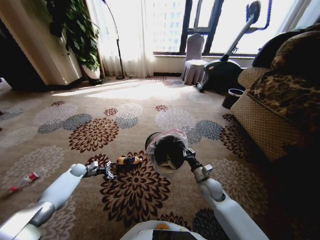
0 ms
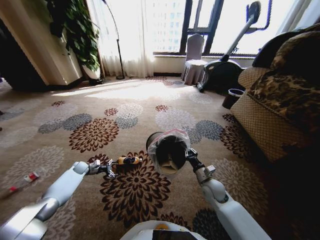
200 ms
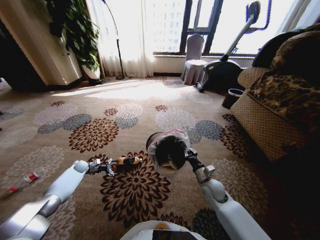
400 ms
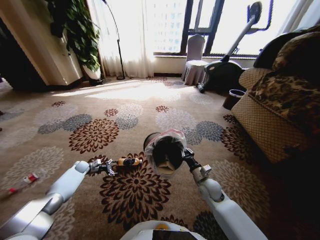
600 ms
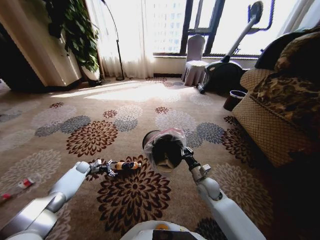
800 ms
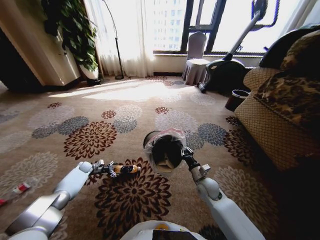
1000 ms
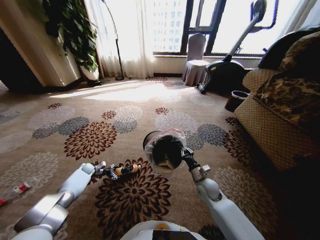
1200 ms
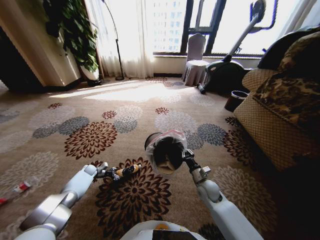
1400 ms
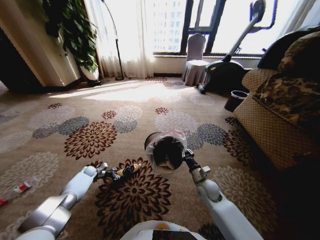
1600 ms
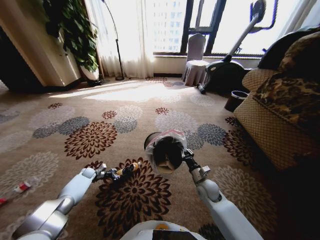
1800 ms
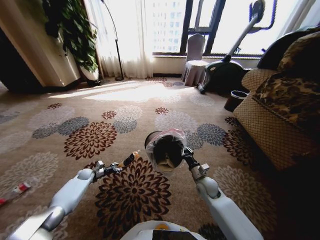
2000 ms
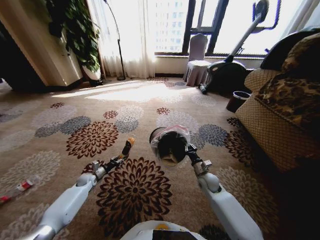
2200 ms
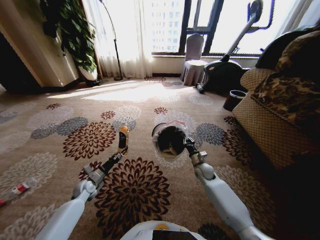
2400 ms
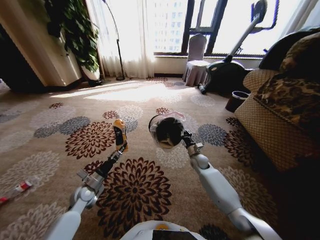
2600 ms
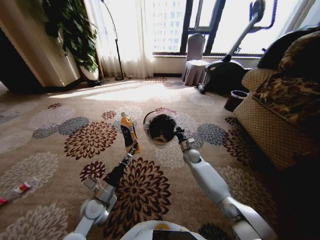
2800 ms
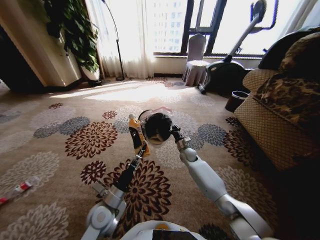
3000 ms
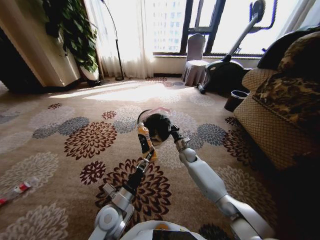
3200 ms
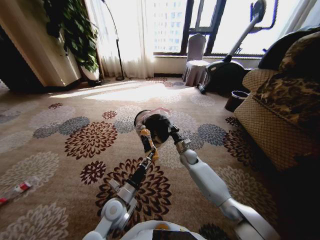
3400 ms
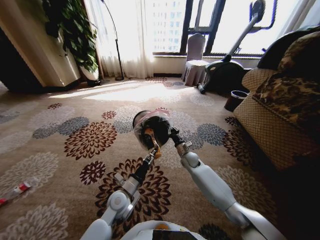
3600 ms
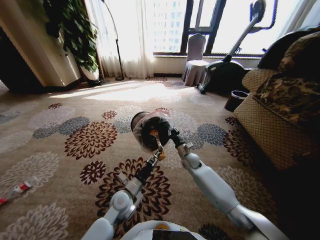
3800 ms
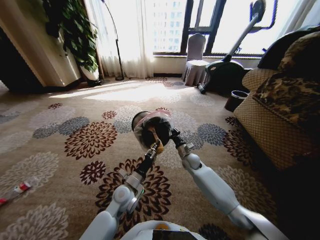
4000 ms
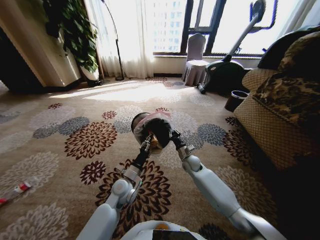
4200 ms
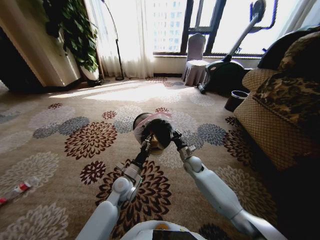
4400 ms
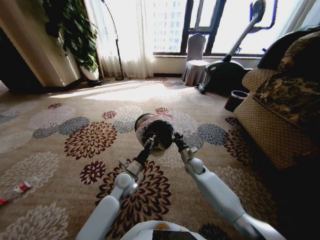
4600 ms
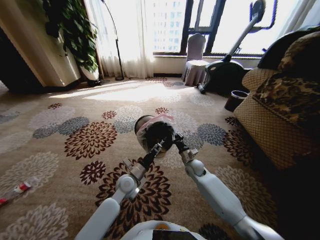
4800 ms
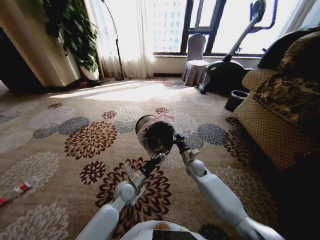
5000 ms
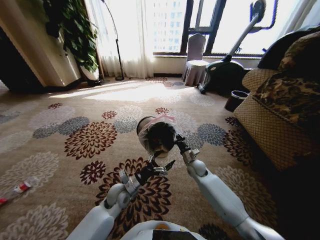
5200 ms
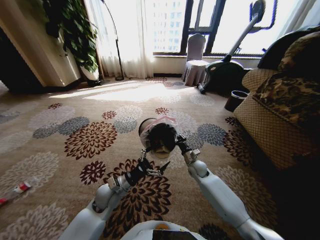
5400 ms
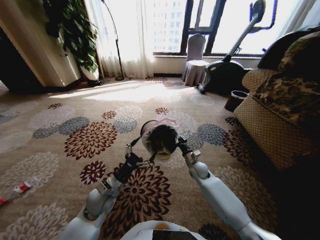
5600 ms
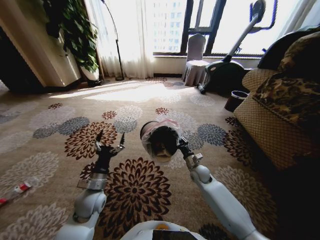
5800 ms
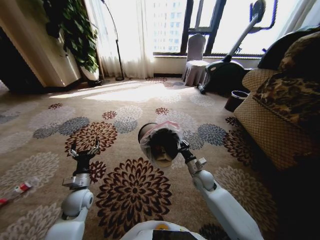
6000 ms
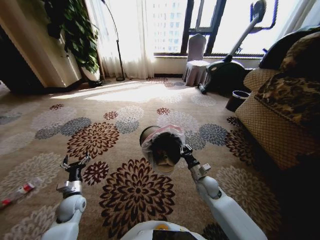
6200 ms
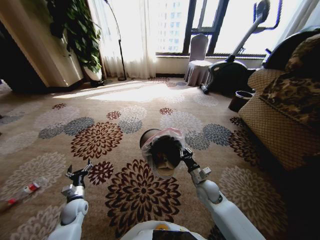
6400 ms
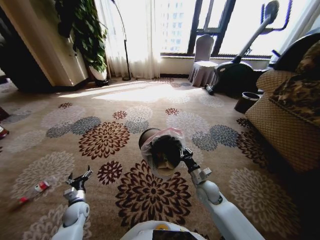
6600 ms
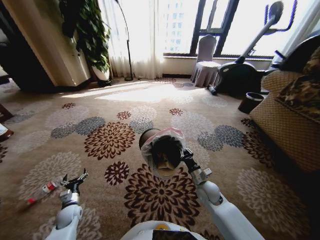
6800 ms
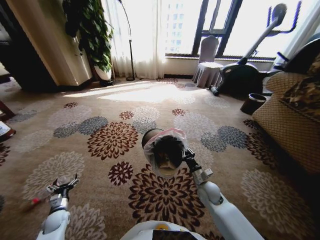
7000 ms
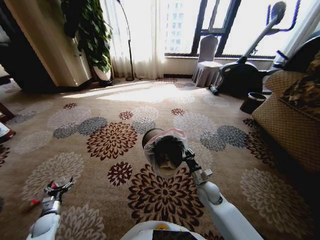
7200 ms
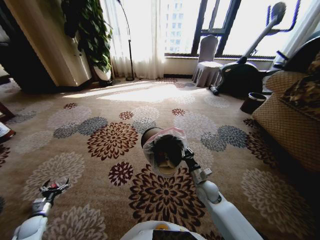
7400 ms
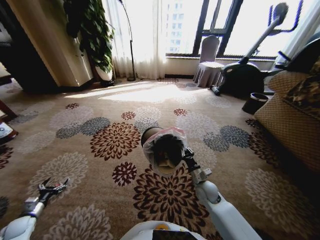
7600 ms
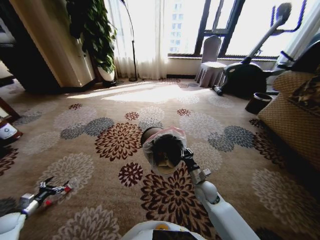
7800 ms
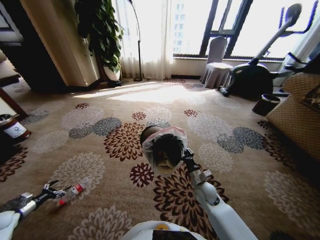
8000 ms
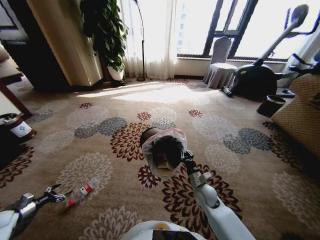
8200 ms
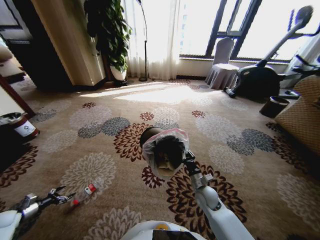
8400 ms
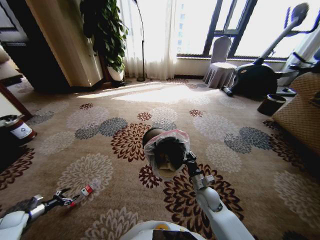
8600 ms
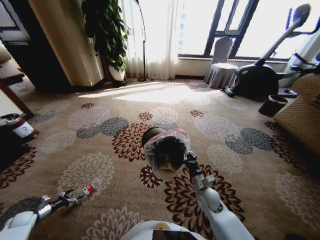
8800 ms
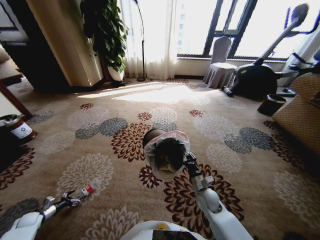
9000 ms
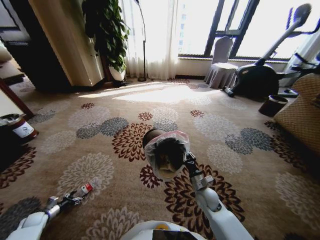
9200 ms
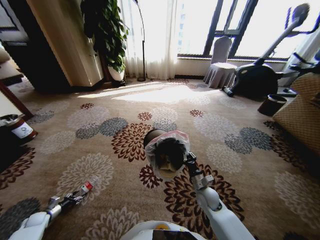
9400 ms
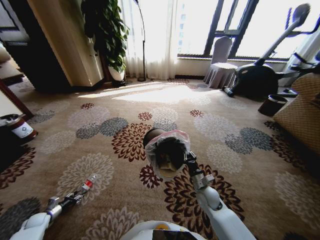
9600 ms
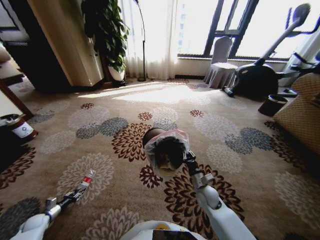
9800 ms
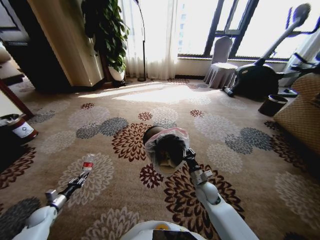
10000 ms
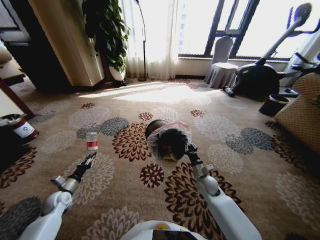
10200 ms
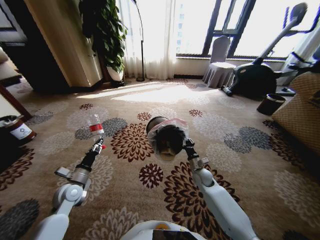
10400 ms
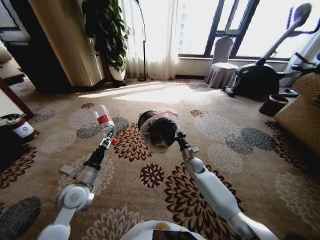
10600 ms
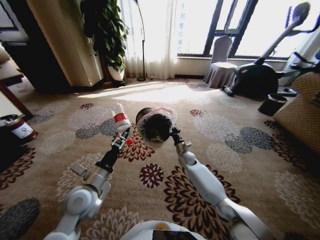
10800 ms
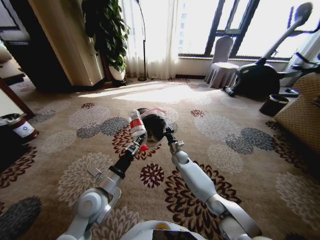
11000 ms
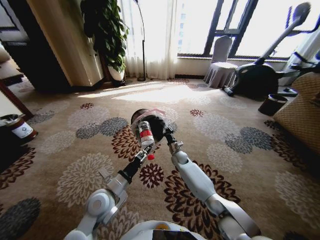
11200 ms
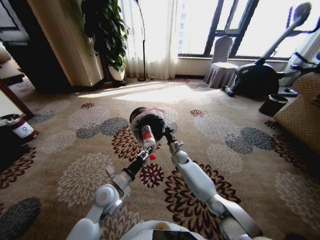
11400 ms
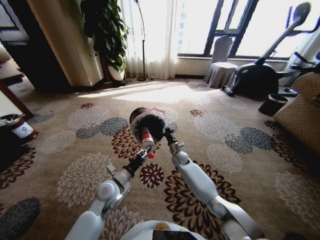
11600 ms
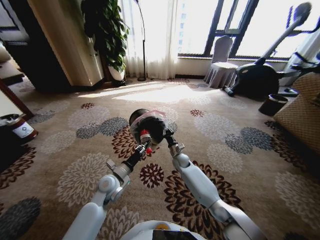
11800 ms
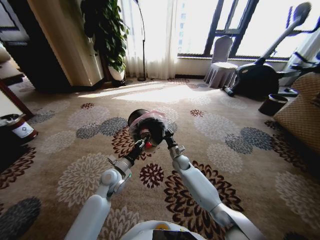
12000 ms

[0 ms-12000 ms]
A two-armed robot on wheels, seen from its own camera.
Task of the whole recording: Pick up the trash from the ground and place it into the trash bin.
0 ms to 1600 ms: The left gripper shifts some 5 cm downward, and closes up.
1600 ms to 3000 ms: The right gripper goes approximately 20 cm forward; the left gripper goes some 40 cm to the right, backward and upward.
3000 ms to 4400 ms: The left gripper travels forward by approximately 10 cm; the right gripper is displaced backward by about 5 cm.
4400 ms to 6000 ms: The right gripper is displaced backward by some 10 cm. The left gripper moves to the left, about 15 cm, and opens its fingers.
6000 ms to 7600 ms: The left gripper goes roughly 30 cm to the left and downward.
7600 ms to 9000 ms: The left gripper changes place by approximately 5 cm.
9000 ms to 10400 ms: The right gripper shifts approximately 10 cm forward. Meanwhile the left gripper is displaced to the right and upward by some 35 cm, and closes its fingers.
10400 ms to 12000 ms: The left gripper is displaced to the right by about 15 cm. The right gripper goes about 15 cm to the left and forward.

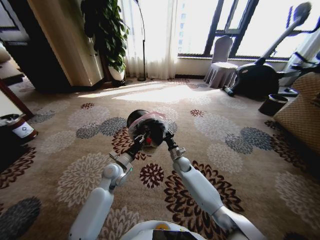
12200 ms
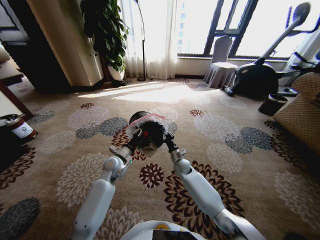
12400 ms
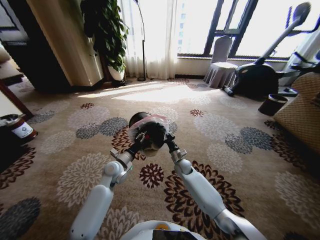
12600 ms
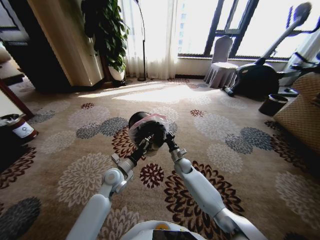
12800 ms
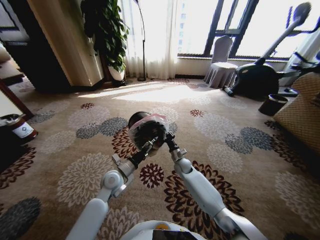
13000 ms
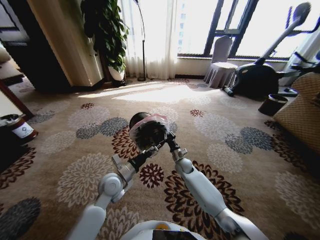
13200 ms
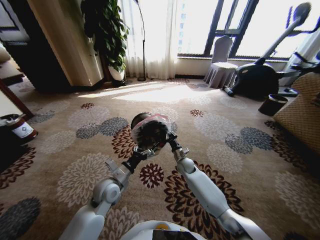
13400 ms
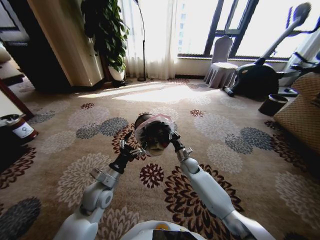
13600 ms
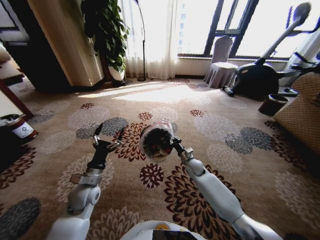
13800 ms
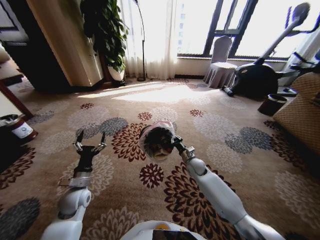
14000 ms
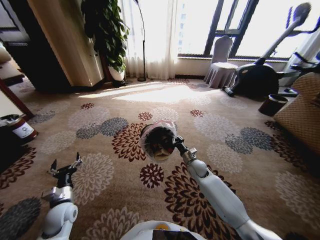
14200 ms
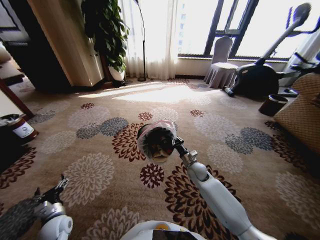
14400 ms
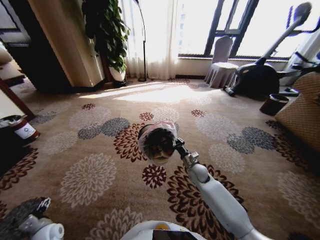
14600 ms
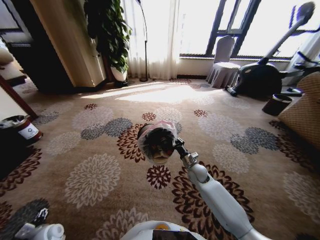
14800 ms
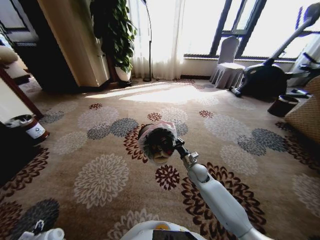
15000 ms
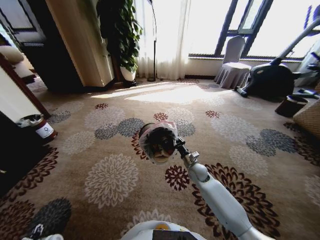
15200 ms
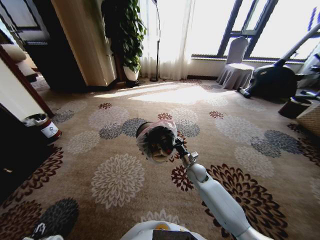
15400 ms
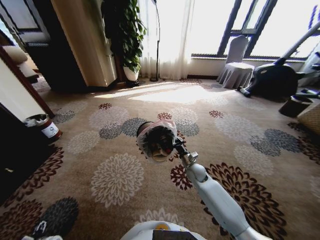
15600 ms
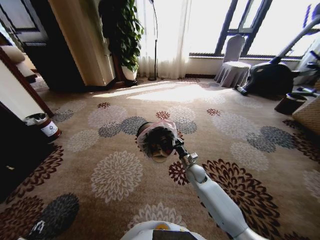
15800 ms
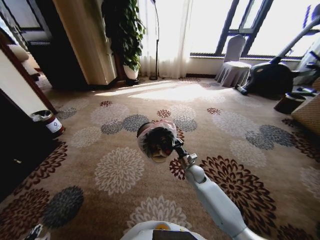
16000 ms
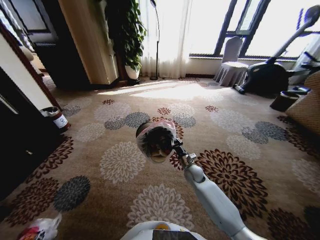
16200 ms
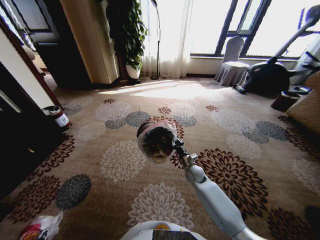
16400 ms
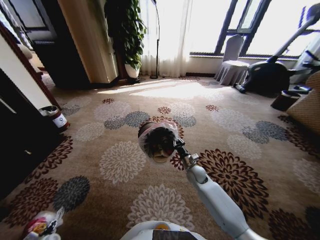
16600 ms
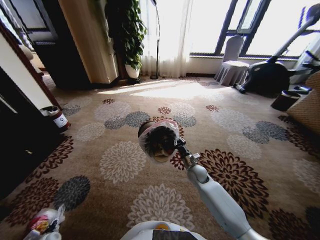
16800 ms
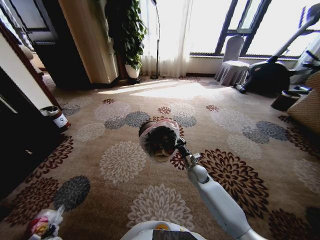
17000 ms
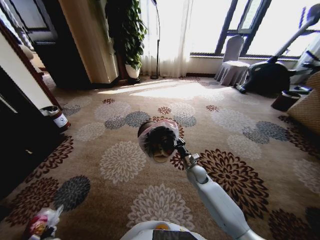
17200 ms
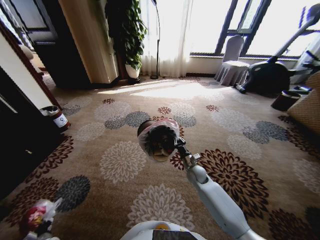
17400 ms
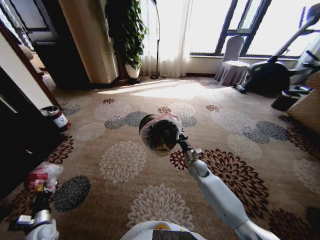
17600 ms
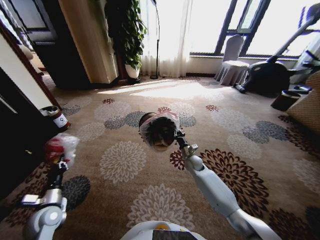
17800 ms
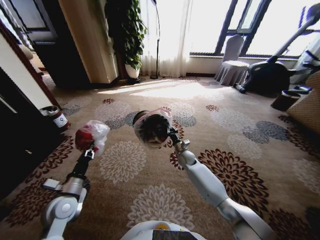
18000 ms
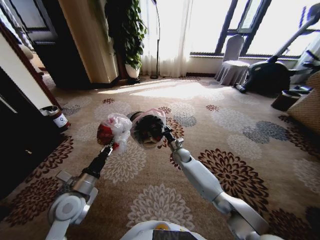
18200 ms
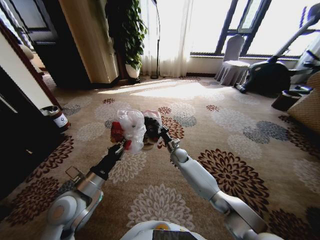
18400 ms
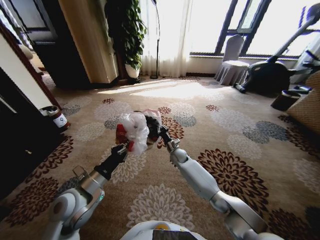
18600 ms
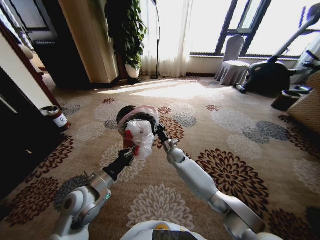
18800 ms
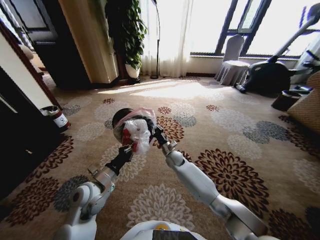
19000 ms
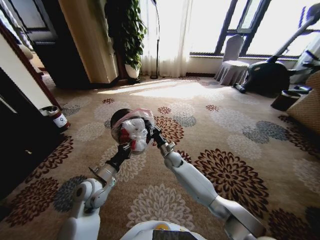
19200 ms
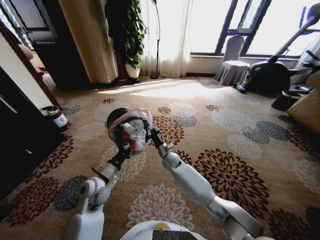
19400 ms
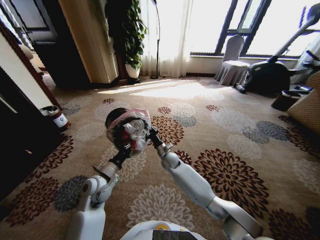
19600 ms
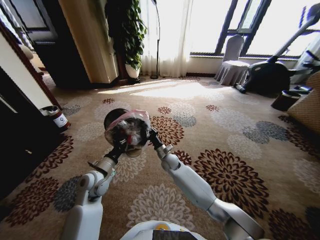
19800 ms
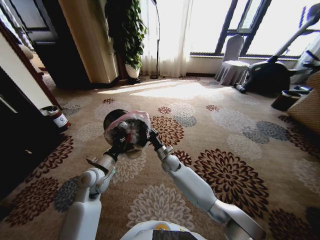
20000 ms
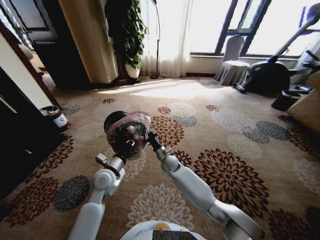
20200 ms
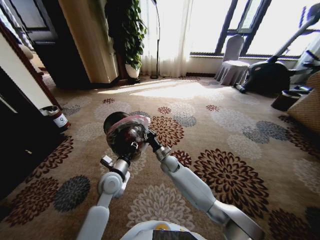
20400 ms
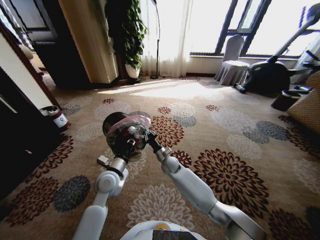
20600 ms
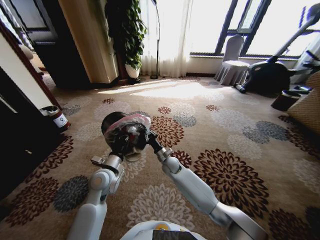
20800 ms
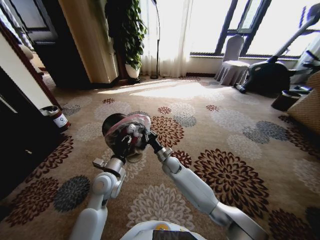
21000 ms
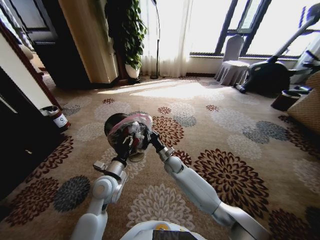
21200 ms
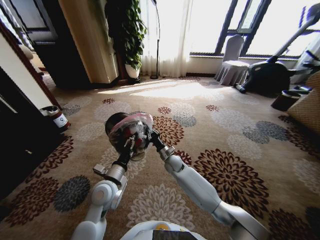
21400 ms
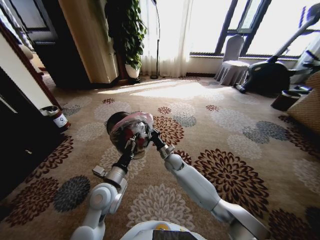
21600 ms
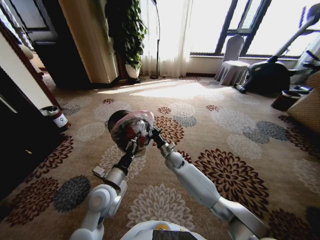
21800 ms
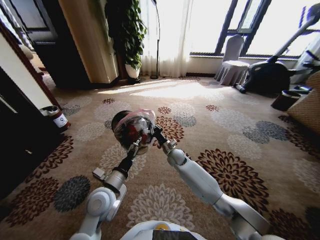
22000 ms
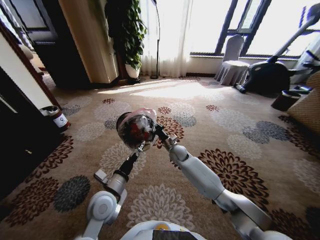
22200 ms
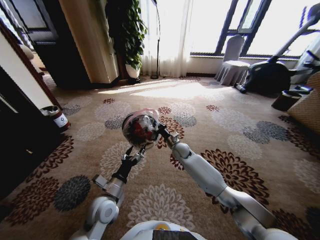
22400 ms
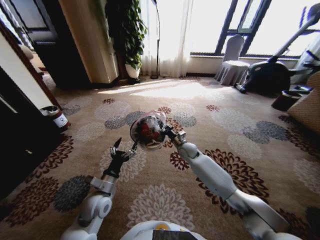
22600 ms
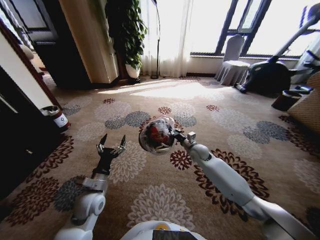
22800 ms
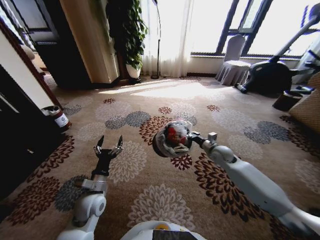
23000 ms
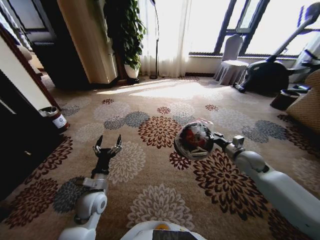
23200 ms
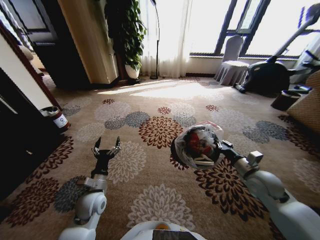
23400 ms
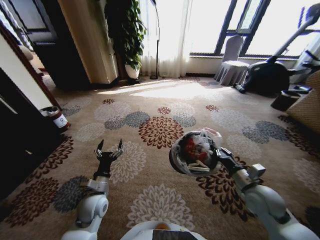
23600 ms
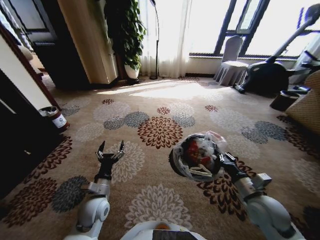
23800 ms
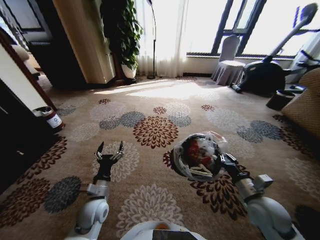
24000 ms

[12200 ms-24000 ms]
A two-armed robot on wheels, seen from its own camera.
Task of the whole recording: Pick up the trash from the ground and place it into the trash bin.
12200 ms to 13600 ms: The left gripper travels backward by roughly 10 cm, and opens its fingers.
13600 ms to 15200 ms: The right gripper ends up some 5 cm from where it was, while the left gripper is displaced to the left, downward and backward by about 35 cm.
16600 ms to 18200 ms: The left gripper moves upward and to the right, roughly 30 cm, and closes its fingers. The right gripper is displaced forward and to the left by about 10 cm.
18200 ms to 19600 ms: The left gripper travels forward by approximately 5 cm. The right gripper goes about 10 cm to the left.
21000 ms to 22600 ms: The right gripper travels to the right, forward and upward by approximately 15 cm, while the left gripper heads backward, covering approximately 5 cm, and opens up.
22600 ms to 24000 ms: The right gripper shifts approximately 35 cm backward and to the right.
